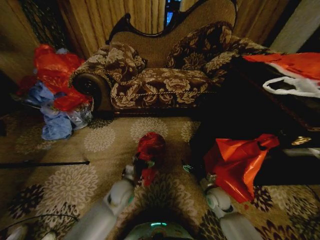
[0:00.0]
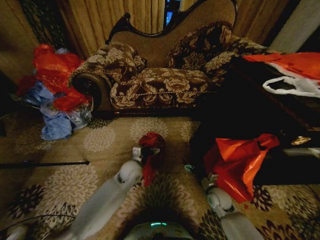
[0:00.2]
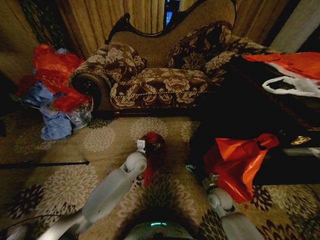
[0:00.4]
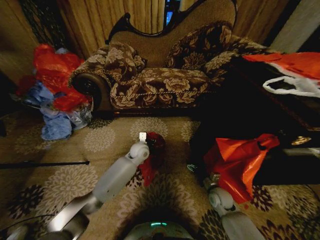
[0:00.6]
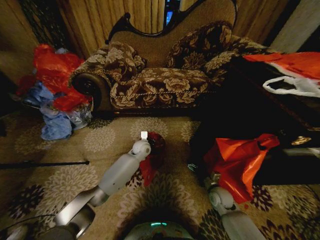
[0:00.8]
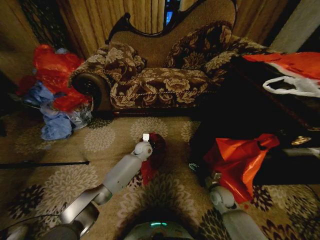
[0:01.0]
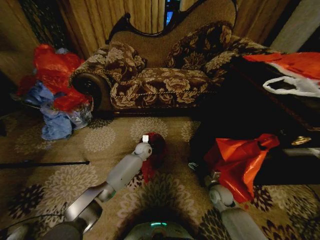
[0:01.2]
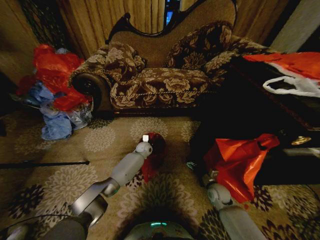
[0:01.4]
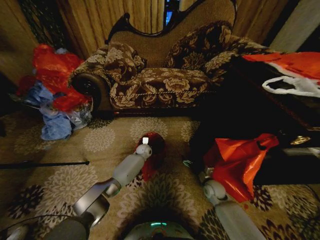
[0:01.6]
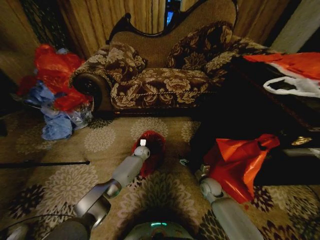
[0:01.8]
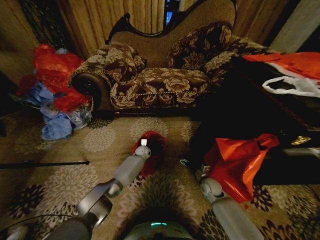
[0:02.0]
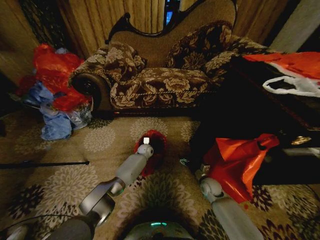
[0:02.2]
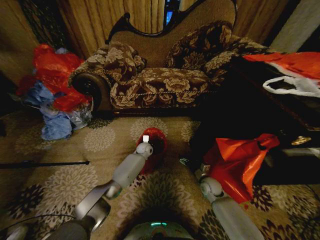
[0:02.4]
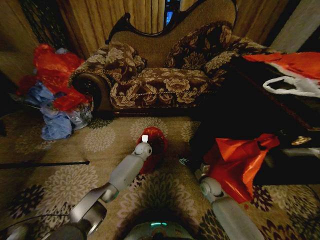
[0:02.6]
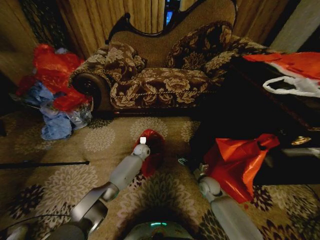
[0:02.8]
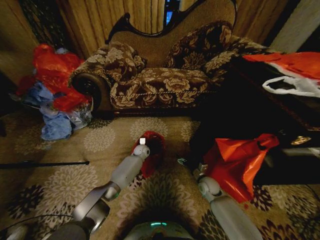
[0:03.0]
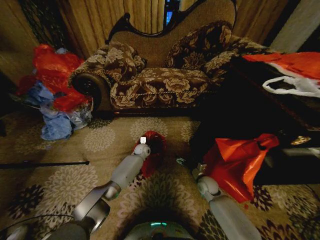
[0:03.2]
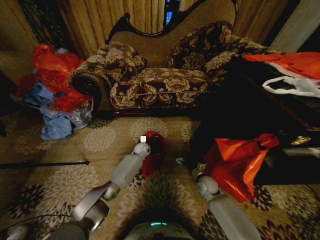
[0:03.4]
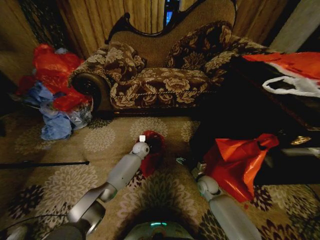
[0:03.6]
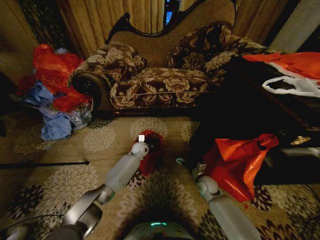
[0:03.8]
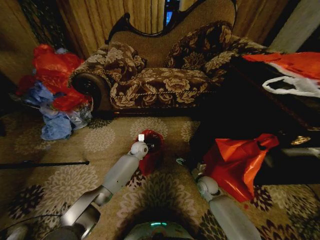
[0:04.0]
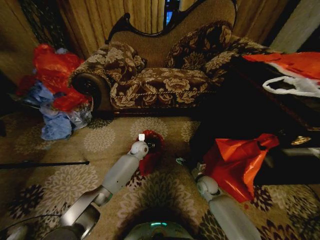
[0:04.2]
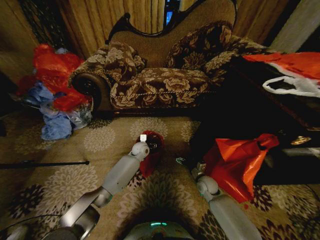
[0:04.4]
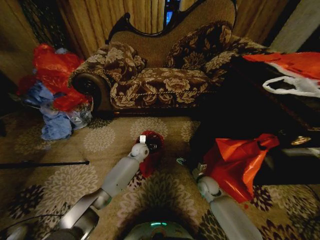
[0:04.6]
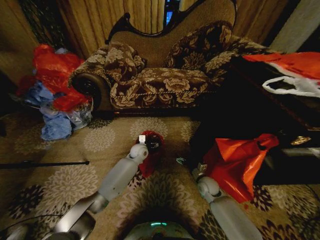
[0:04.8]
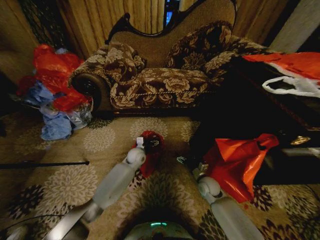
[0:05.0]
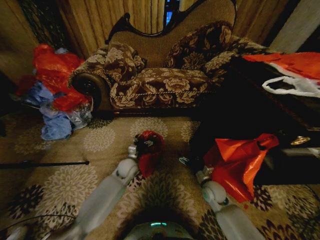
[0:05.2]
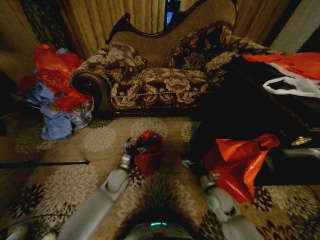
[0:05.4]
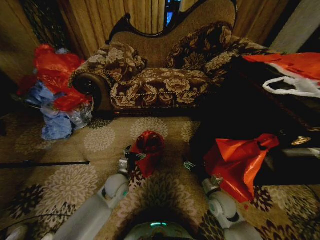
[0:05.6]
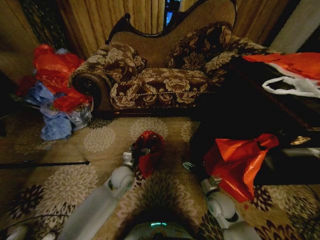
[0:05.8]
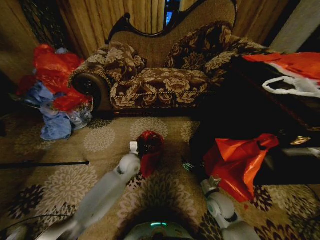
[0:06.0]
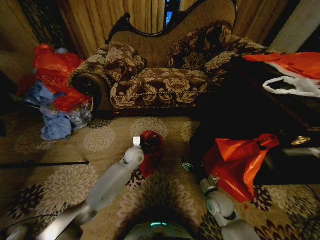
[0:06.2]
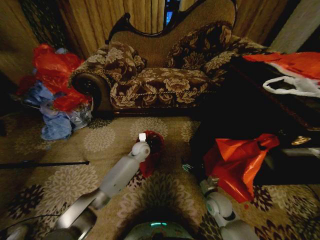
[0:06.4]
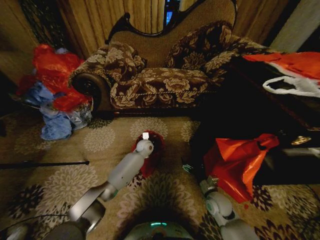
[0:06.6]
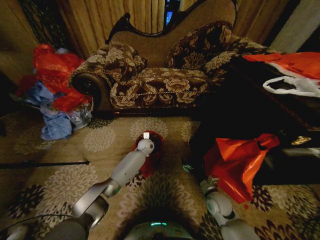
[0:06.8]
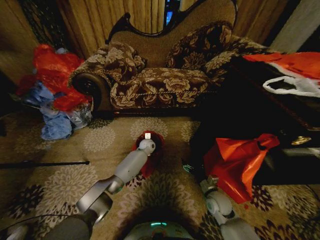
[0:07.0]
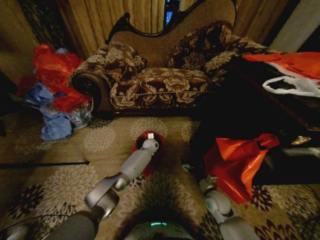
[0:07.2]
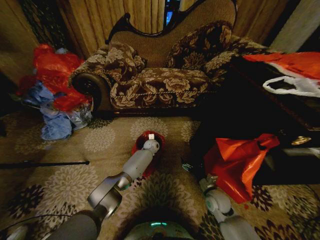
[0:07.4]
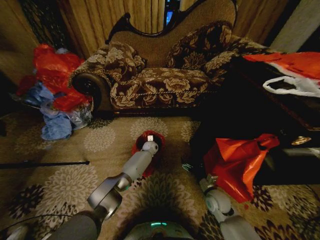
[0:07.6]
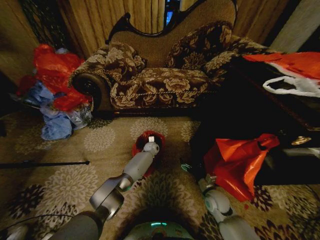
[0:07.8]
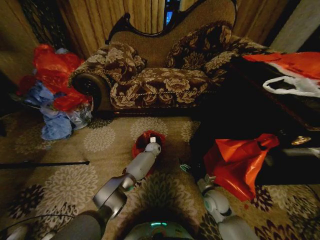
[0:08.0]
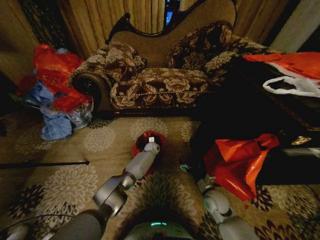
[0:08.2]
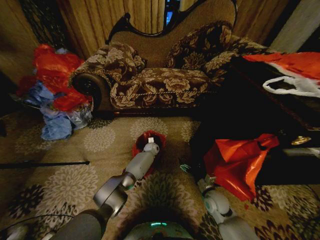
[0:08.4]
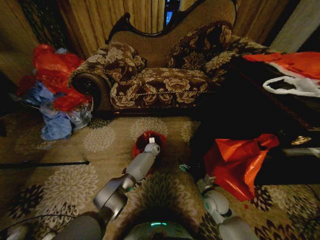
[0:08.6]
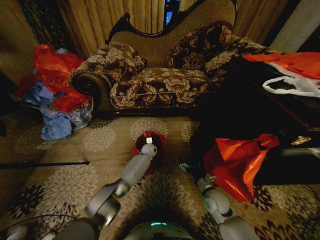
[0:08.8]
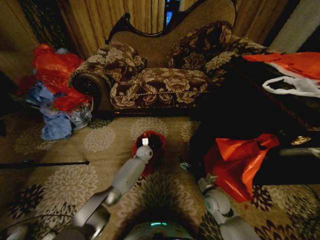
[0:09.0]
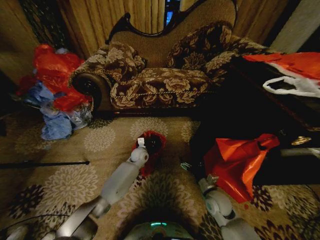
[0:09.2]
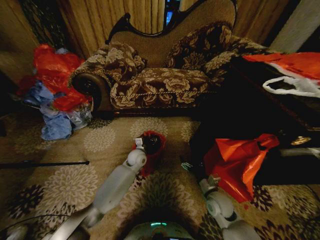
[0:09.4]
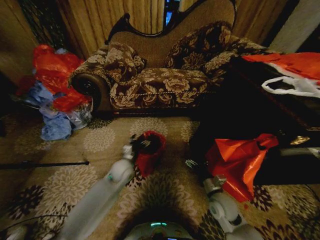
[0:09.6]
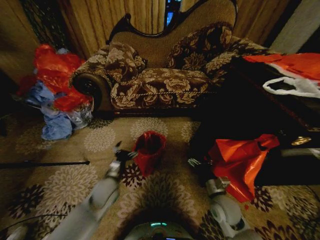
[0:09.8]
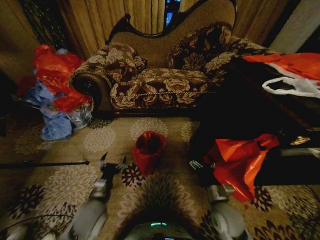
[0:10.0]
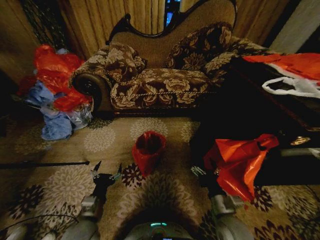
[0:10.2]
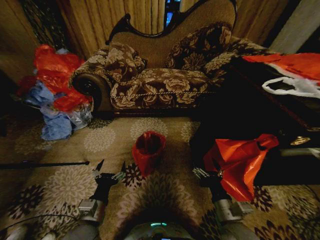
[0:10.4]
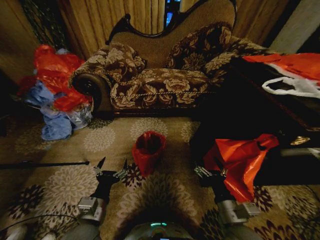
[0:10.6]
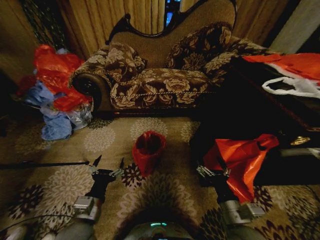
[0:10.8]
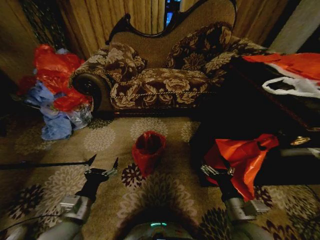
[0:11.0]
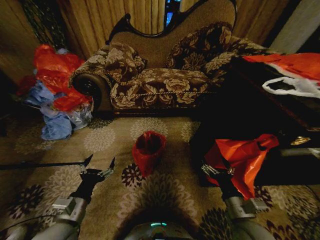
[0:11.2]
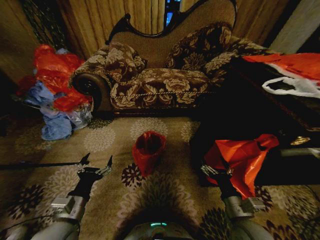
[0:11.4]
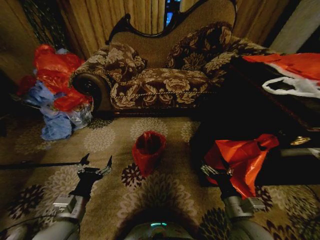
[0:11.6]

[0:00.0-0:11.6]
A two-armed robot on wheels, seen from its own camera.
Task of the whole recording: Place a garbage bag over the trash bin.
0:00.0 to 0:01.4: The left gripper goes some 25 cm forward, and closes.
0:01.4 to 0:02.8: There are only small adjustments of the grippers.
0:02.8 to 0:04.4: The left gripper is displaced upward by about 5 cm, and opens its fingers.
0:04.4 to 0:05.8: The right gripper heads backward and upward, covering roughly 10 cm. Meanwhile the left gripper shifts approximately 15 cm backward.
0:05.8 to 0:07.2: The left gripper travels forward and to the right by approximately 25 cm, and closes its fingers.
0:07.2 to 0:08.8: The grippers make only small movements.
0:08.8 to 0:10.2: The left gripper goes approximately 40 cm backward, and opens up; the right gripper shifts about 15 cm backward and upward.
0:10.2 to 0:11.6: The left gripper travels upward by roughly 5 cm.
